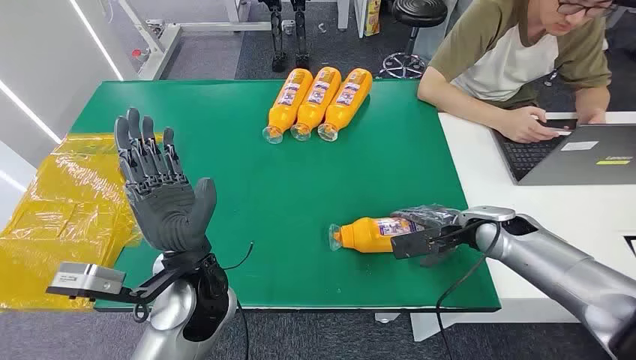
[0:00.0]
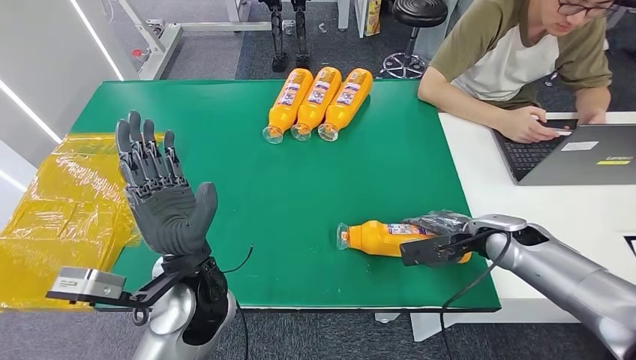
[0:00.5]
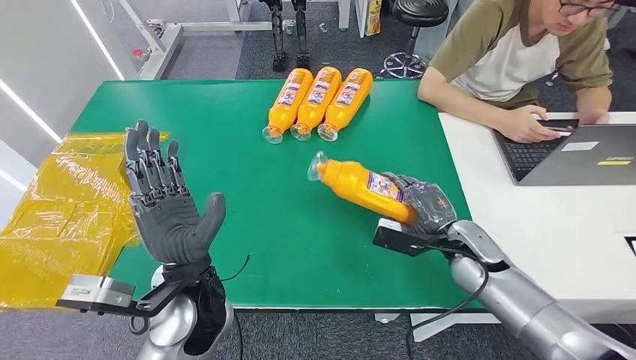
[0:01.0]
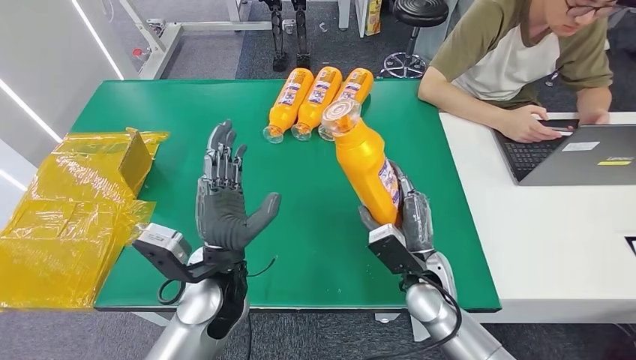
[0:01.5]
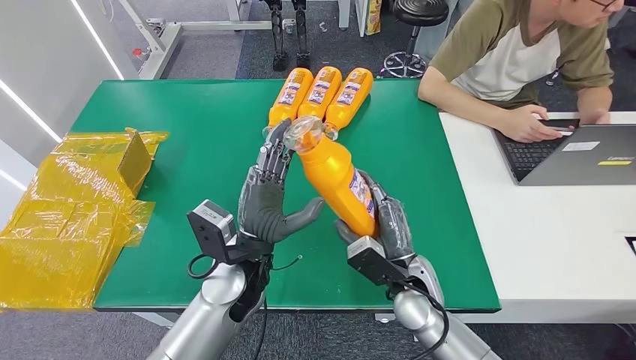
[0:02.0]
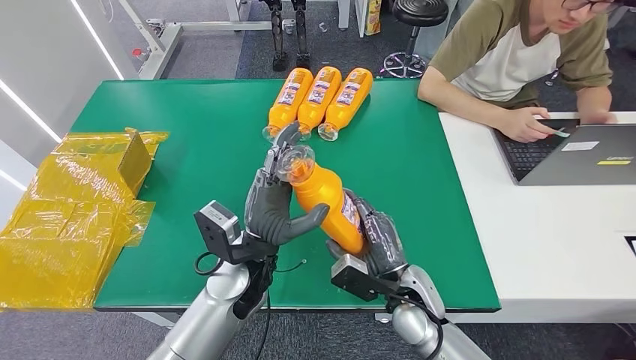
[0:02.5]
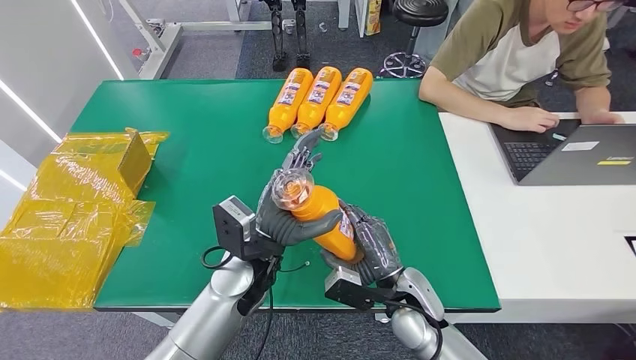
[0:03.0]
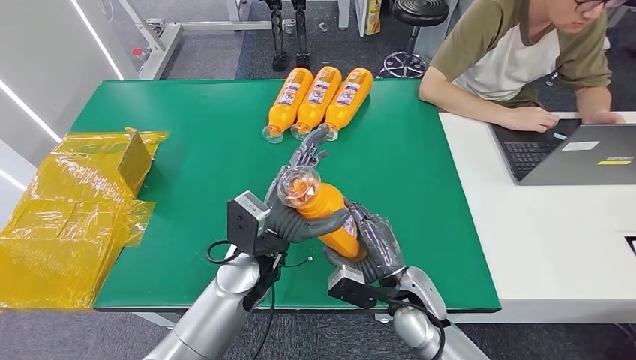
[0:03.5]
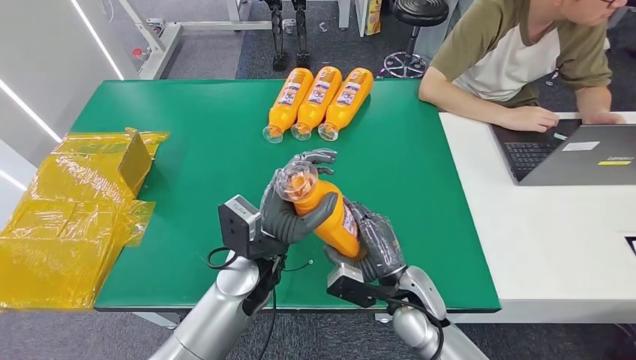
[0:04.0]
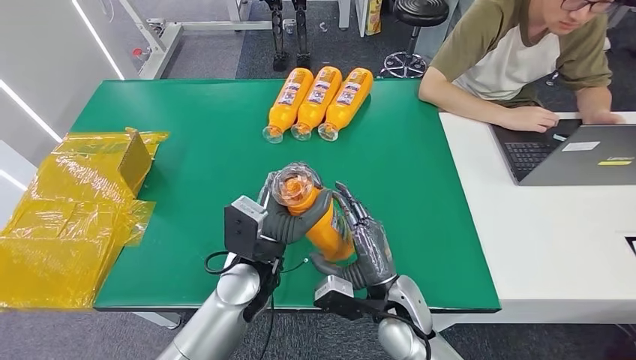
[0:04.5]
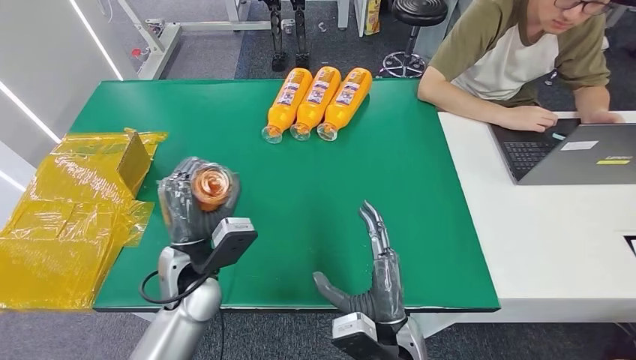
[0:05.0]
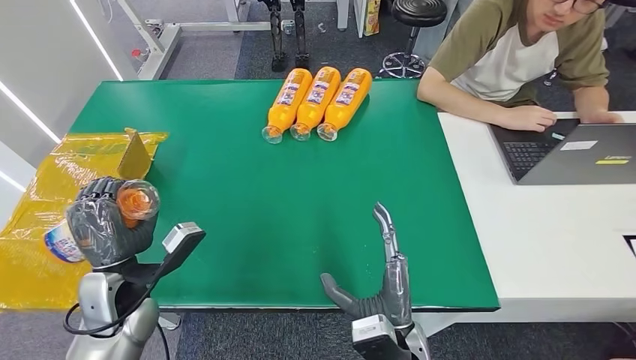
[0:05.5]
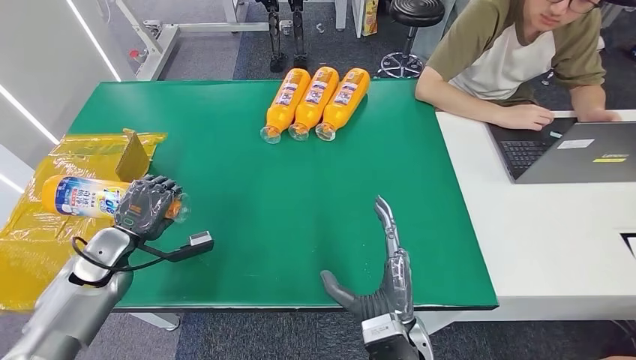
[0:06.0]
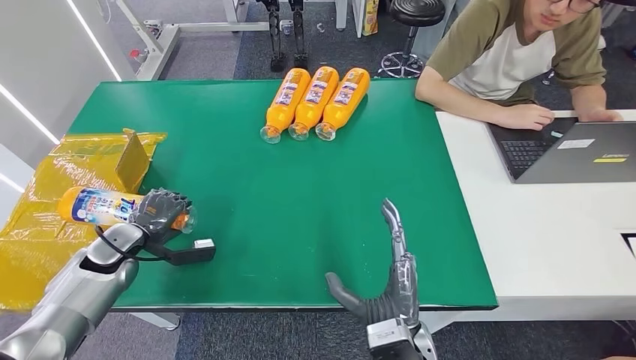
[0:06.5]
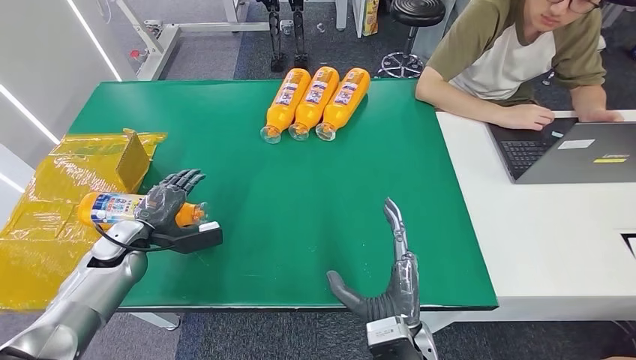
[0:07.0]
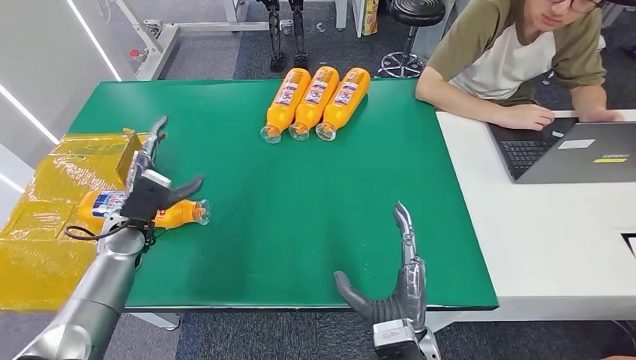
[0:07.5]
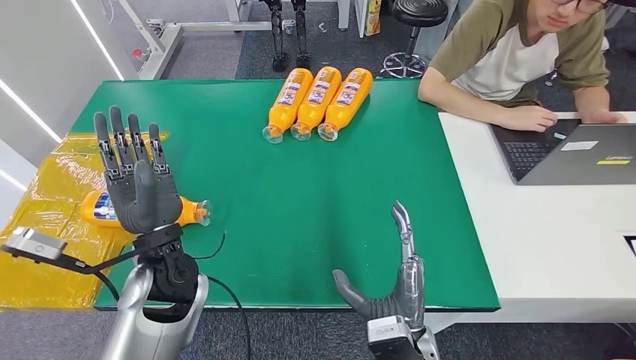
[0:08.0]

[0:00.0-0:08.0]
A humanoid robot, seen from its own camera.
Step, 0:00.0 to 0:02.0: Pick up the bottle from the table.
Step, 0:02.5 to 0:08.0: Turn the bottle to the front side.
0:02.0 to 0:04.0: The hands move only a little.
